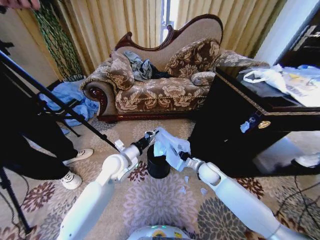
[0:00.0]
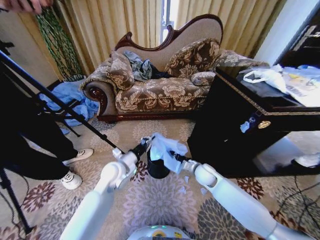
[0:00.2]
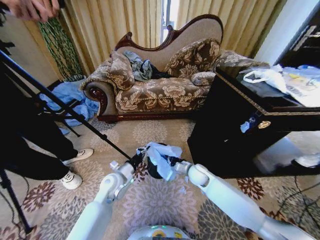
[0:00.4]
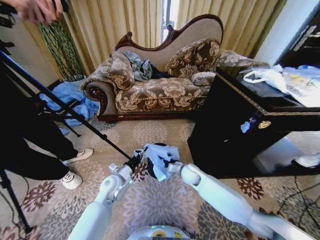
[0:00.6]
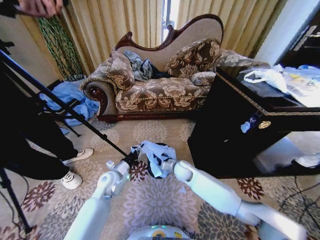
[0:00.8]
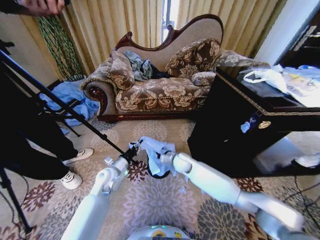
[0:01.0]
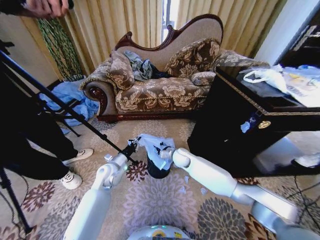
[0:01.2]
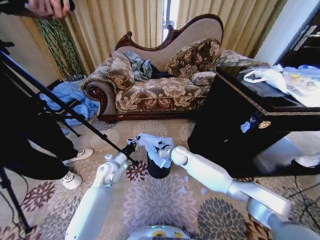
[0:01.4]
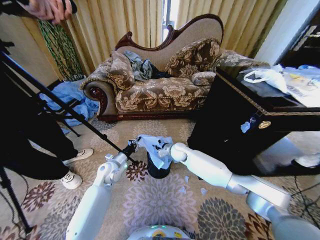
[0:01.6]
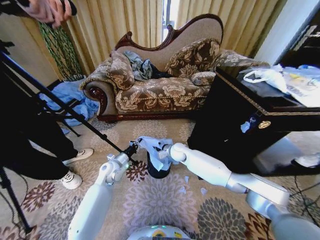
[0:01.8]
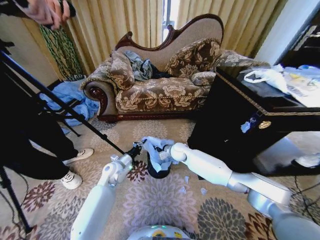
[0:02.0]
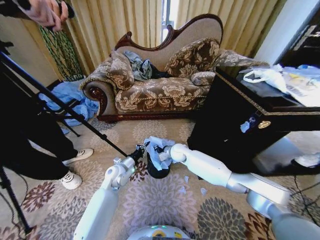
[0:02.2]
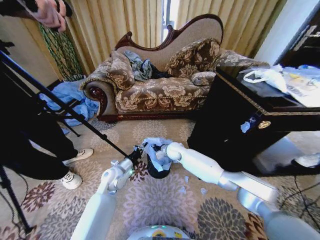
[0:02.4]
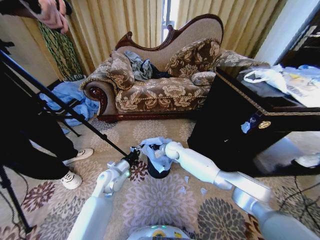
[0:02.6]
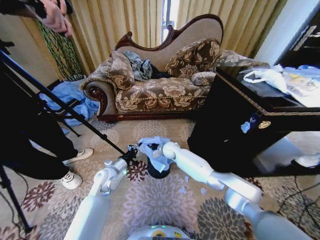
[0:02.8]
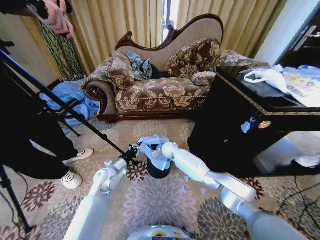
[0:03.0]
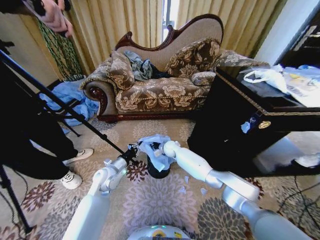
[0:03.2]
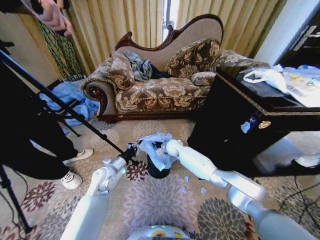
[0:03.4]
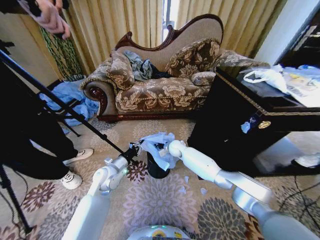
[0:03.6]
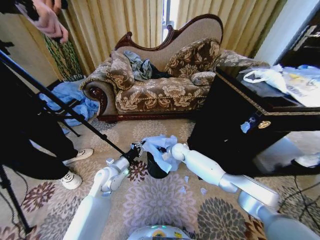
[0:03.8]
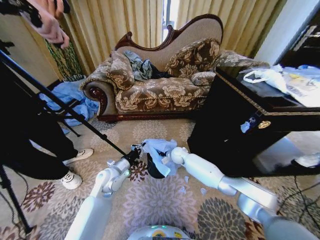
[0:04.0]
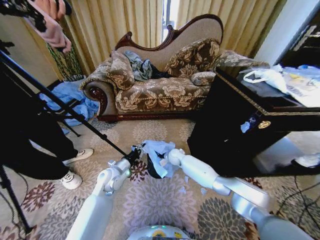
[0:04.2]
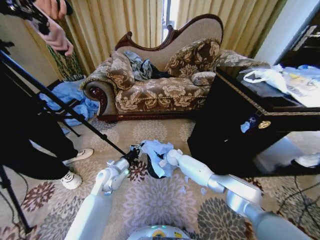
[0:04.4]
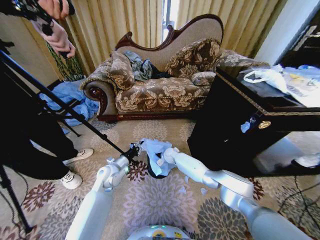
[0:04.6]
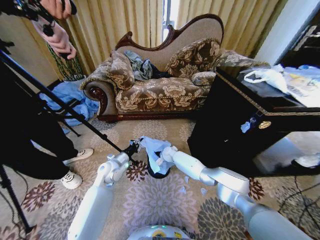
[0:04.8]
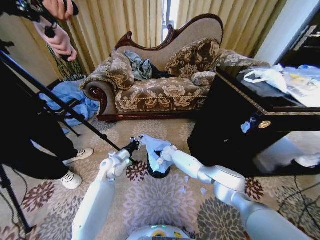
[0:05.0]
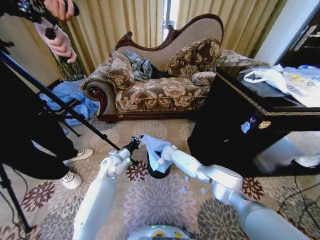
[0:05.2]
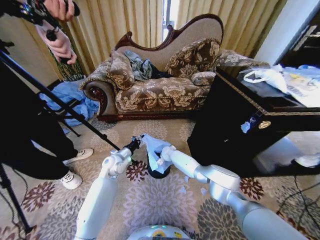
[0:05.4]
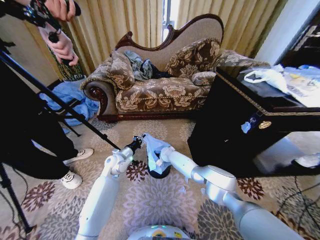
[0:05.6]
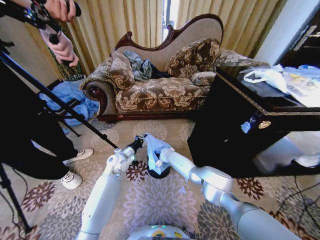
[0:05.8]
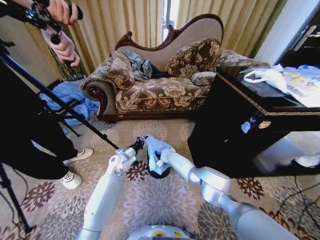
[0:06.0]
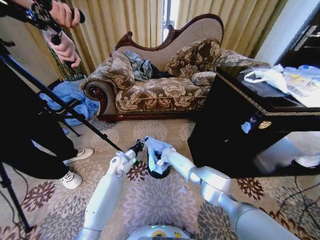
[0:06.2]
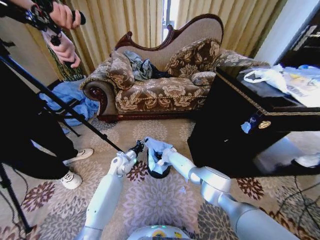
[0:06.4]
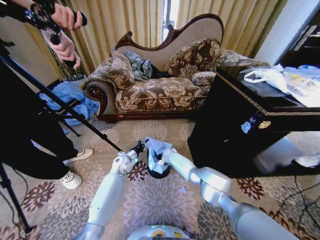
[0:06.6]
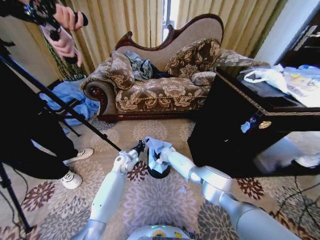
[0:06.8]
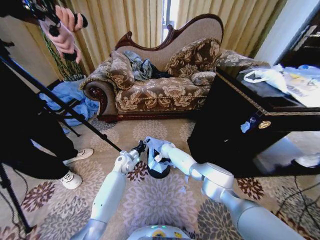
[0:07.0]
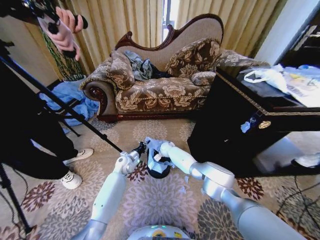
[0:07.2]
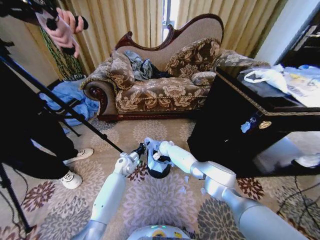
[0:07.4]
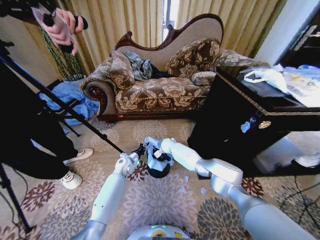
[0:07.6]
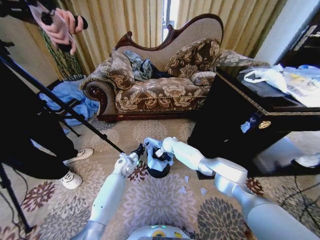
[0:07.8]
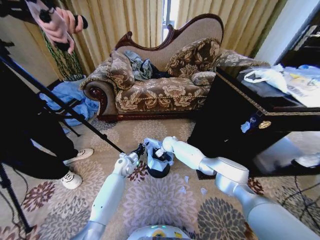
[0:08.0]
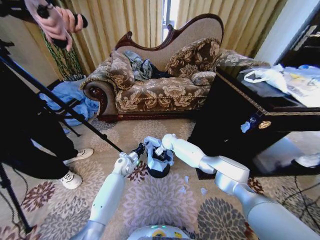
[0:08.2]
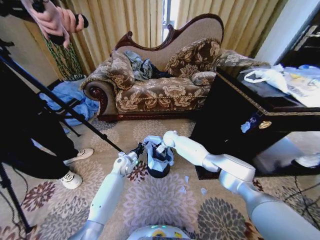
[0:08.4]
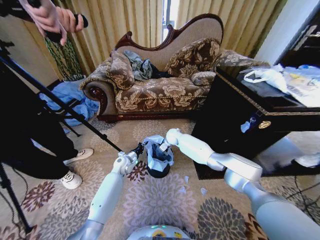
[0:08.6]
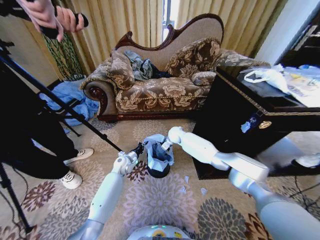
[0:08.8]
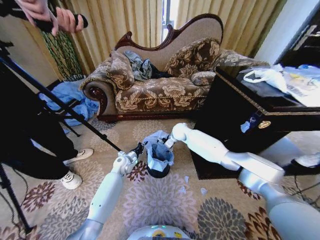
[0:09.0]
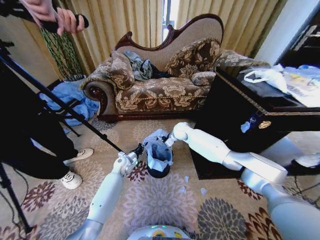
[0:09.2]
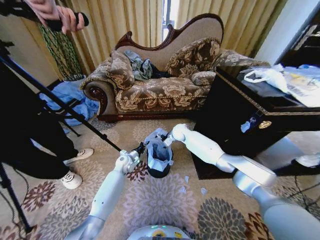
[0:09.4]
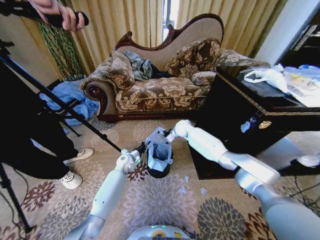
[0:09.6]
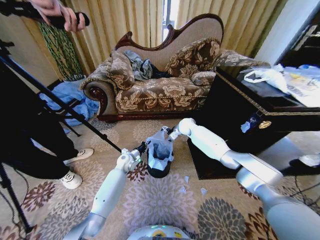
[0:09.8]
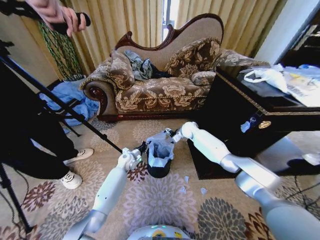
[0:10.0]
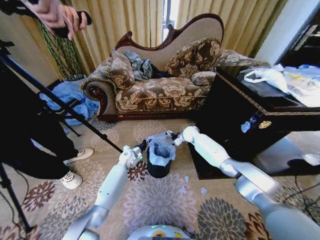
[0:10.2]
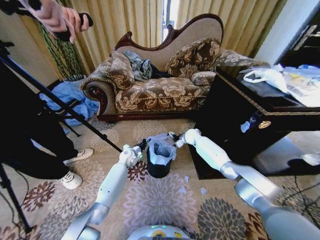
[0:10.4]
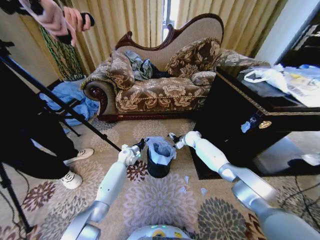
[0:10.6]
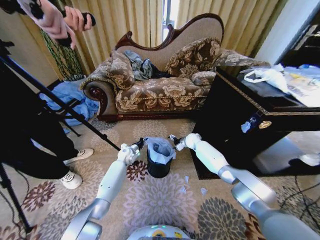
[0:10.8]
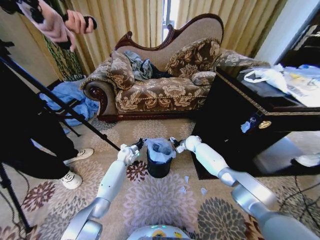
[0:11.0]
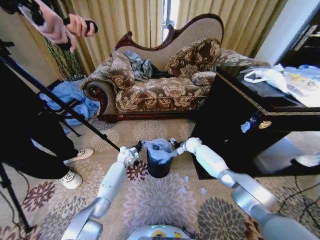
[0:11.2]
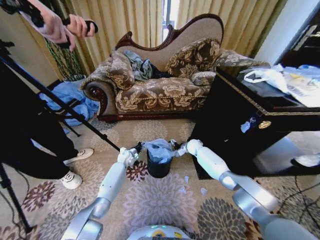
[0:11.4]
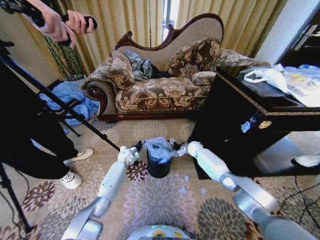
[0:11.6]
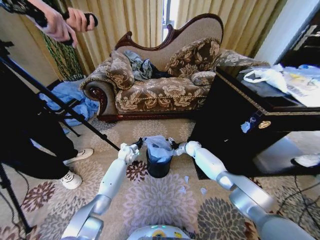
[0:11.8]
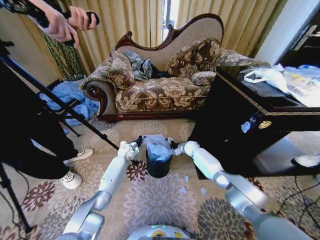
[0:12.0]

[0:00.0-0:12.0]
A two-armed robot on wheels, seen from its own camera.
Task of the whole recording: Place a garbage bag over the trash bin.
0:00.0 to 0:01.6: The right gripper heads to the left and forward, covering roughly 15 cm; the left gripper moves downward and to the left, approximately 10 cm.
0:01.6 to 0:03.0: The right gripper ends up some 10 cm from where it was.
0:03.0 to 0:04.4: The right gripper goes roughly 5 cm downward.
0:04.4 to 0:06.0: The right gripper shifts by some 5 cm, while the left gripper is displaced forward by approximately 10 cm.
0:06.0 to 0:07.6: The left gripper shifts roughly 5 cm downward; the right gripper goes some 10 cm upward, and opens.
0:07.6 to 0:09.0: The right gripper moves upward and to the right, about 15 cm.
0:09.0 to 0:10.4: The right gripper moves to the right and downward, about 10 cm, while the left gripper moves about 5 cm.
0:10.4 to 0:12.0: The left gripper ends up some 5 cm from where it was, while the right gripper is displaced downward by some 10 cm.

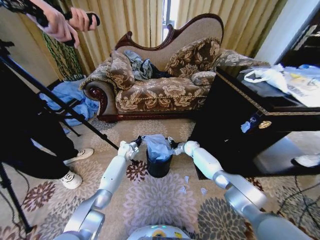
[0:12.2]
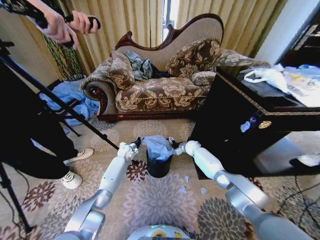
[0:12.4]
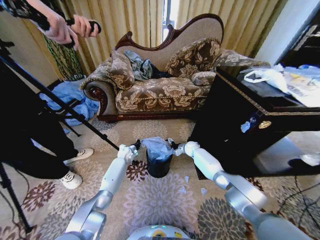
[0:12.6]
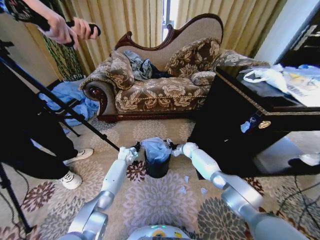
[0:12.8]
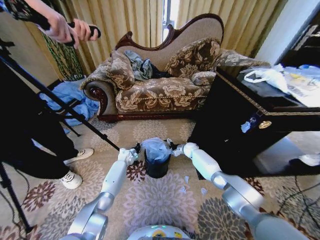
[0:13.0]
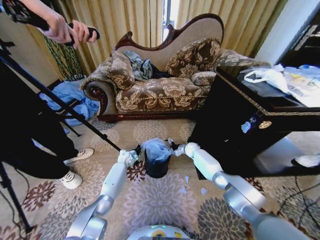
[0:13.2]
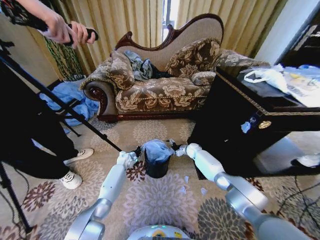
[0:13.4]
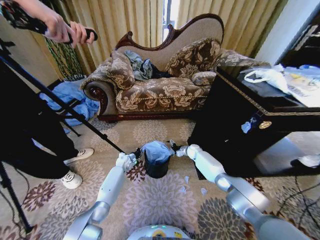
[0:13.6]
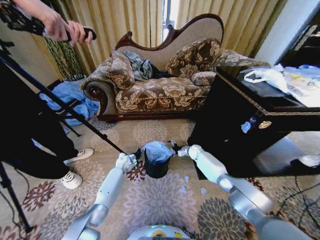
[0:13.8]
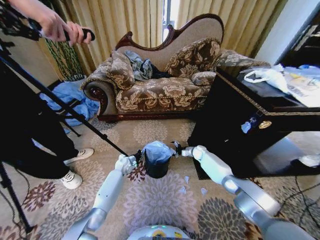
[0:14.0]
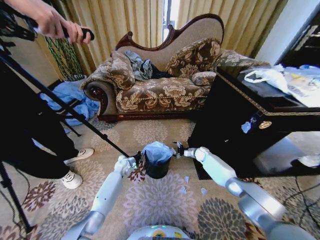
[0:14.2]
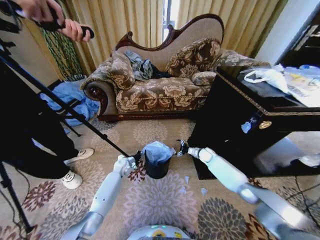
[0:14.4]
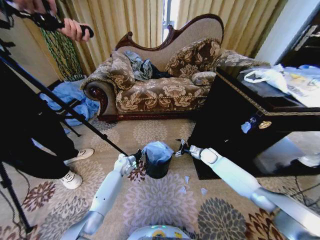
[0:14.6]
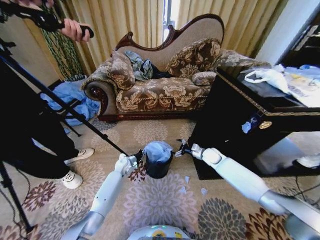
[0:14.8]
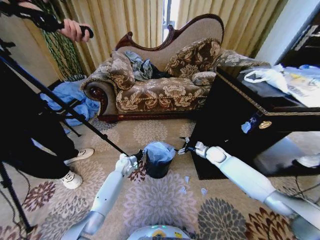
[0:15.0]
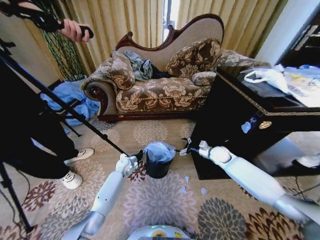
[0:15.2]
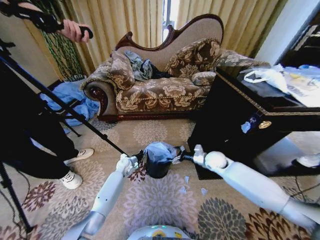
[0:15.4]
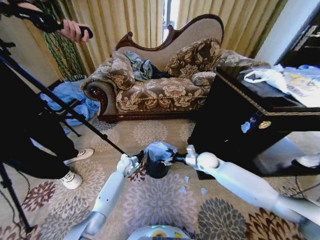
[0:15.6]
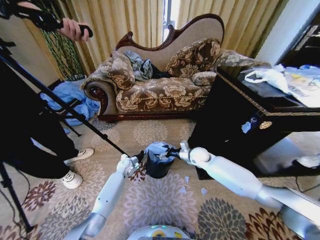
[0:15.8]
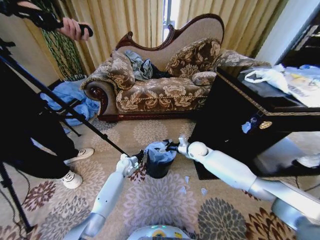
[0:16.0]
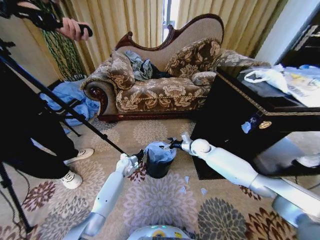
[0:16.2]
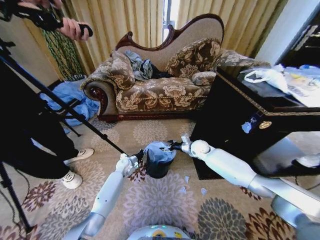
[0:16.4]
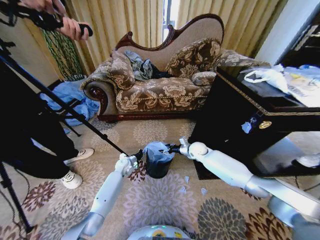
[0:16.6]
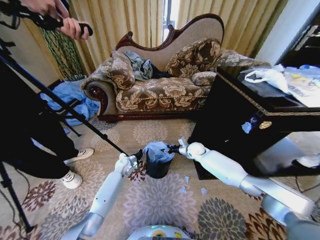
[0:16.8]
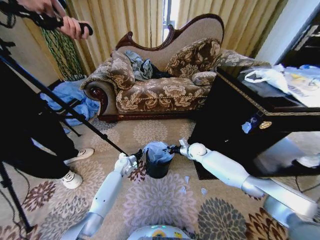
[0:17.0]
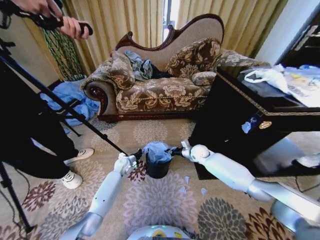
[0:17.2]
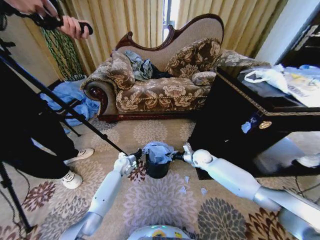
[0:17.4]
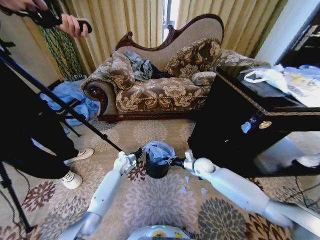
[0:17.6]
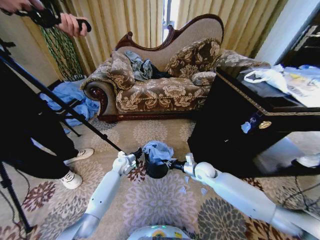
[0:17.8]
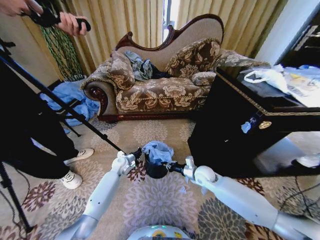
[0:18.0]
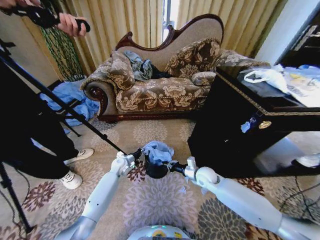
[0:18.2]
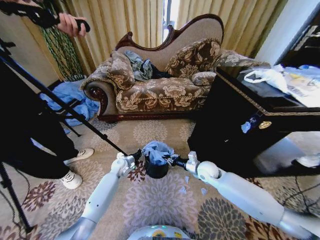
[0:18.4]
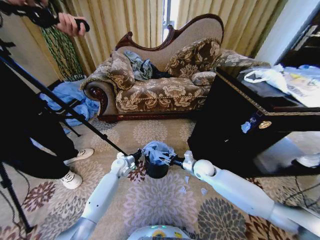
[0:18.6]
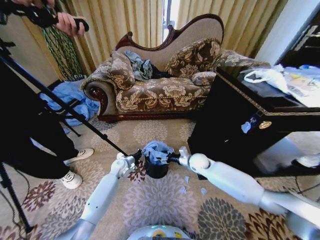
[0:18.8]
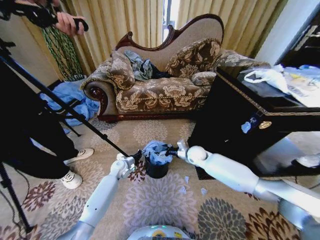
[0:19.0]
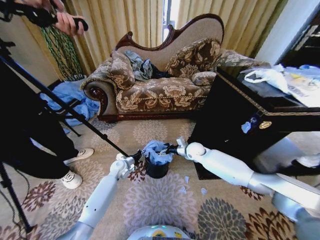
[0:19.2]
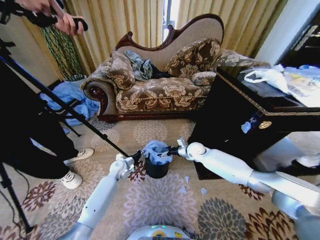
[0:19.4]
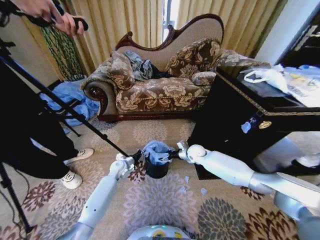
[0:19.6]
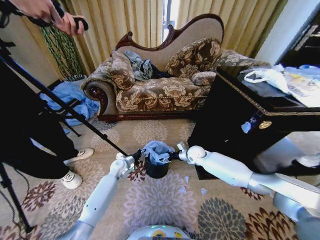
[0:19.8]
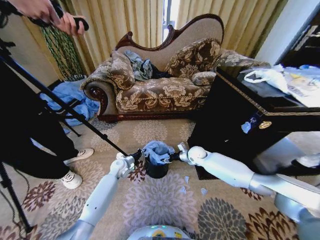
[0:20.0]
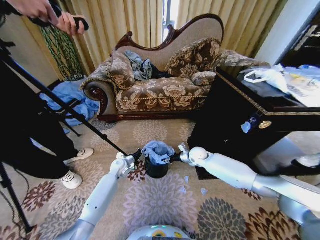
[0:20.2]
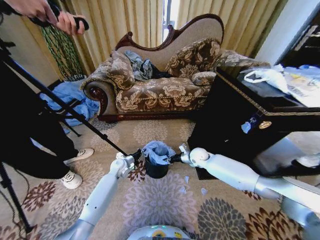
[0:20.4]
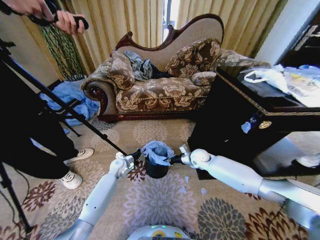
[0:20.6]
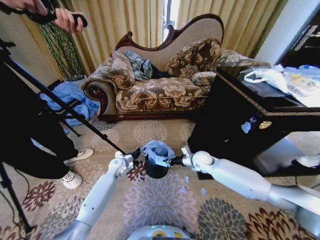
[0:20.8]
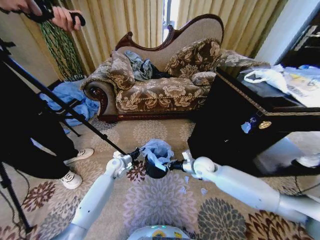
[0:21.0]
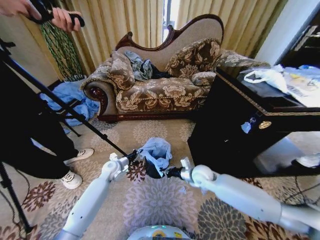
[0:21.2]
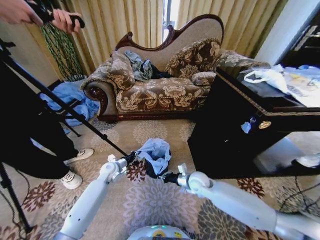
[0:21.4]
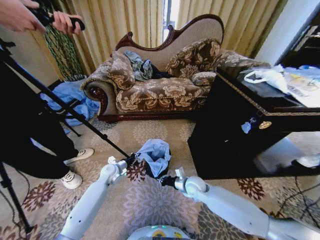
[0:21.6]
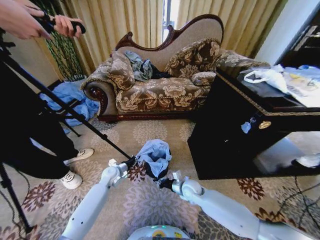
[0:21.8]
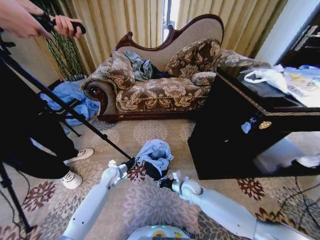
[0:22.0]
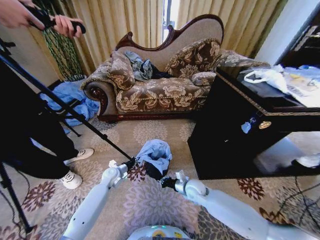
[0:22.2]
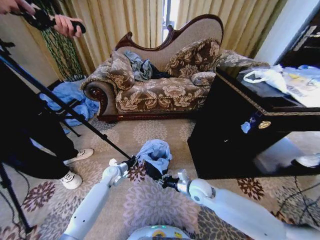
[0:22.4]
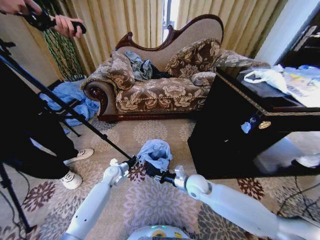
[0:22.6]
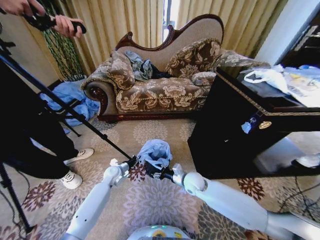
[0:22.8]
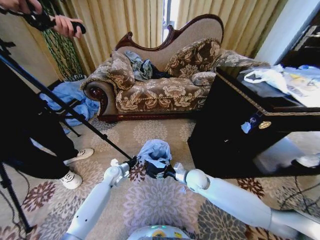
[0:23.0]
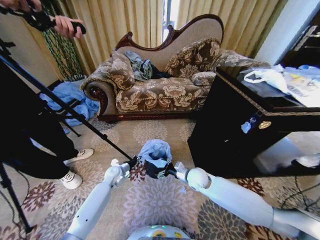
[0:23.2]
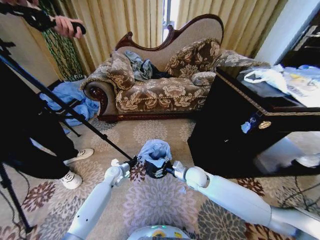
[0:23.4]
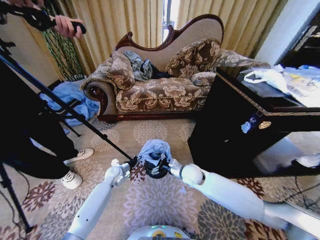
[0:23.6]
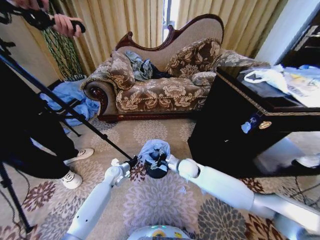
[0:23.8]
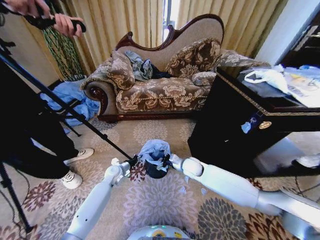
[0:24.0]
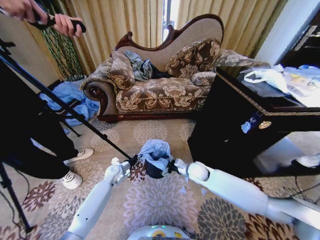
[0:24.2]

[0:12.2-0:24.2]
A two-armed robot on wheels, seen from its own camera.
Task of the whole recording: Place a garbage bag over the trash bin.
0:12.2 to 0:13.8: The left gripper is displaced backward and downward by approximately 5 cm.
0:13.8 to 0:15.2: The right gripper heads upward, backward and to the right, covering approximately 15 cm.
0:15.2 to 0:16.6: The right gripper moves to the left, about 10 cm.
0:16.6 to 0:18.2: The right gripper is displaced backward by roughly 15 cm, and closes its fingers.
0:18.2 to 0:19.8: The right gripper shifts approximately 10 cm forward, and opens.
0:19.8 to 0:21.2: The right gripper travels backward by approximately 15 cm, and closes.
0:21.2 to 0:22.6: The right gripper goes downward and returns, approximately 10 cm each way, and opens up.
0:22.6 to 0:24.2: The right gripper heads forward, covering about 5 cm, and opens its fingers.
